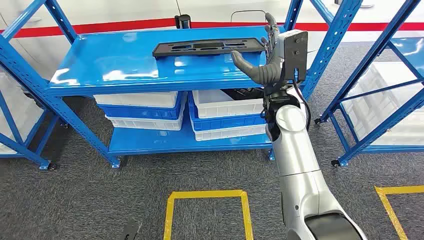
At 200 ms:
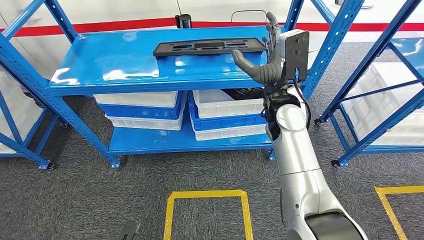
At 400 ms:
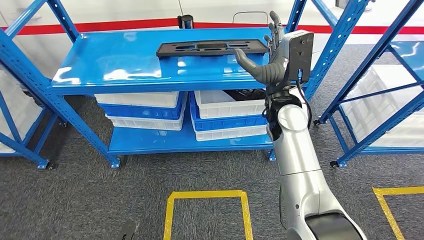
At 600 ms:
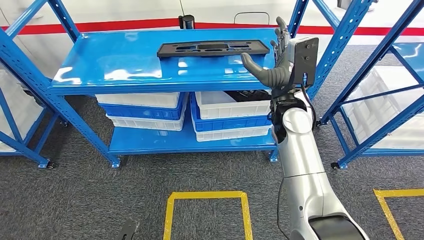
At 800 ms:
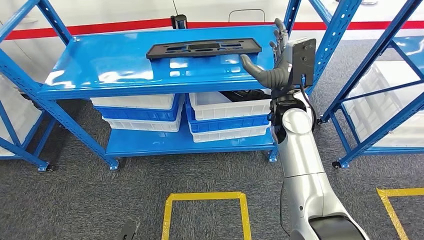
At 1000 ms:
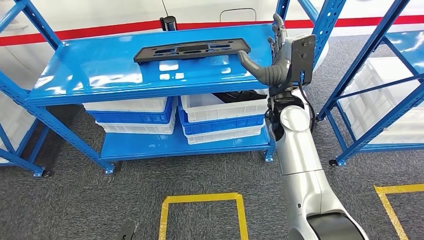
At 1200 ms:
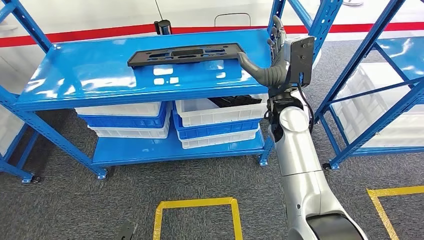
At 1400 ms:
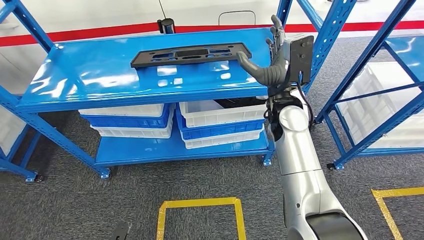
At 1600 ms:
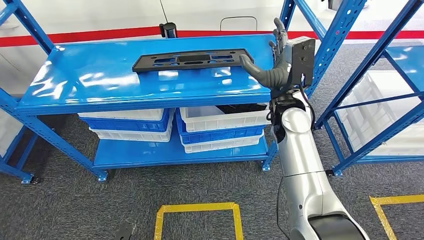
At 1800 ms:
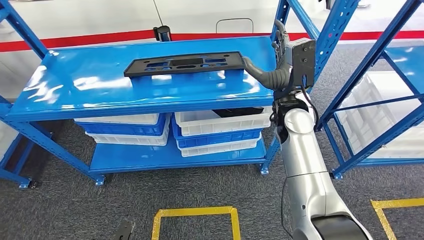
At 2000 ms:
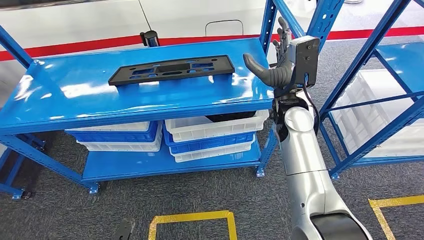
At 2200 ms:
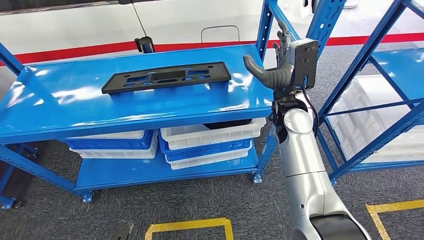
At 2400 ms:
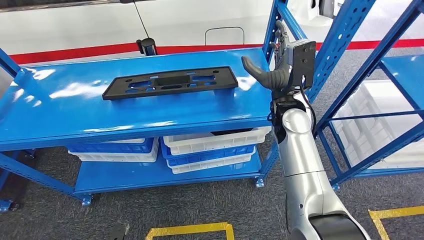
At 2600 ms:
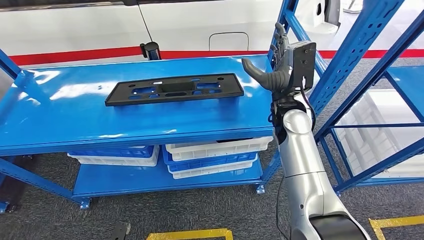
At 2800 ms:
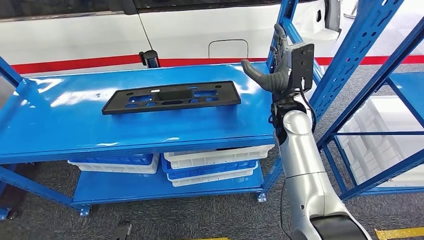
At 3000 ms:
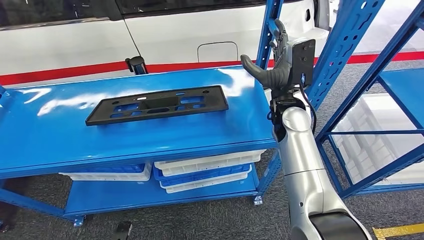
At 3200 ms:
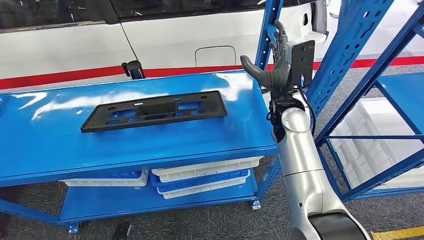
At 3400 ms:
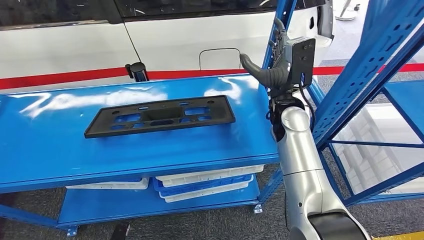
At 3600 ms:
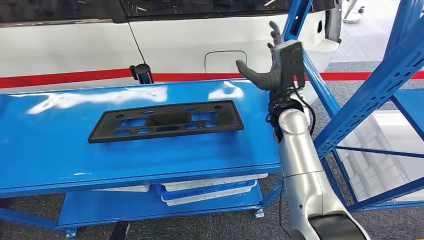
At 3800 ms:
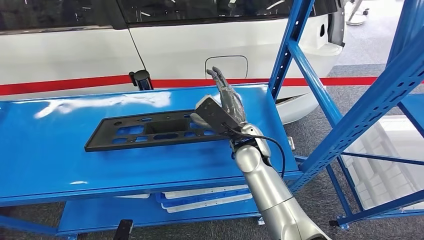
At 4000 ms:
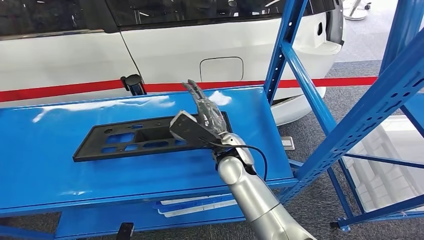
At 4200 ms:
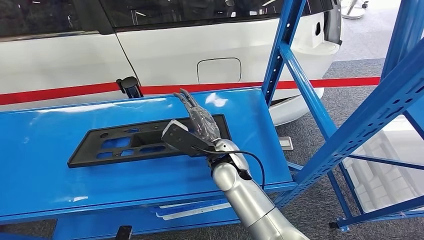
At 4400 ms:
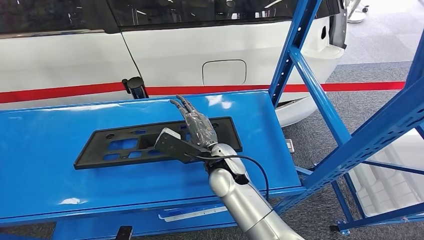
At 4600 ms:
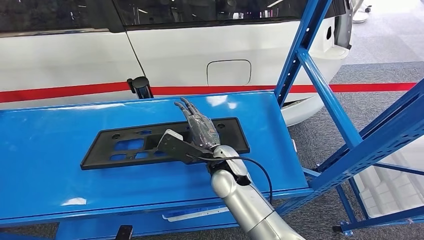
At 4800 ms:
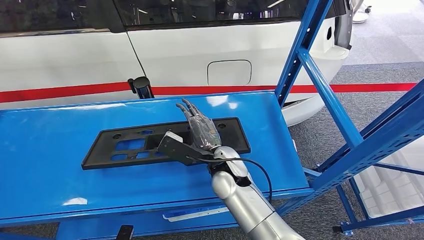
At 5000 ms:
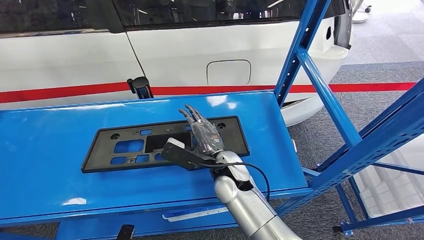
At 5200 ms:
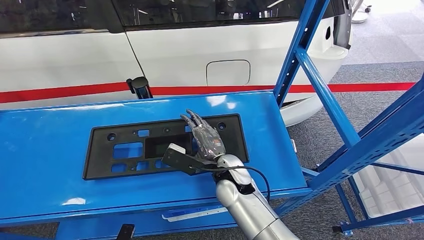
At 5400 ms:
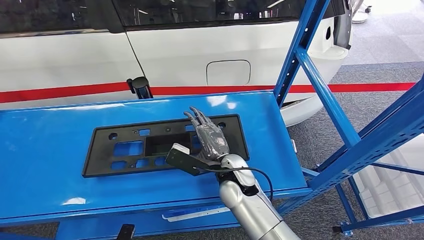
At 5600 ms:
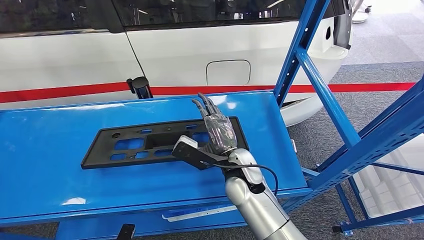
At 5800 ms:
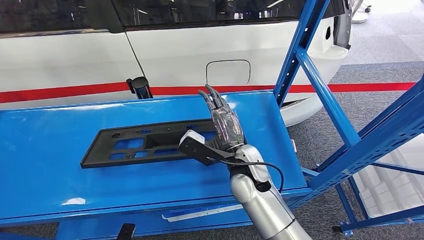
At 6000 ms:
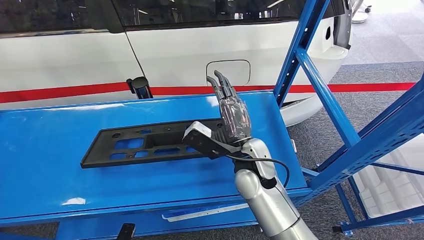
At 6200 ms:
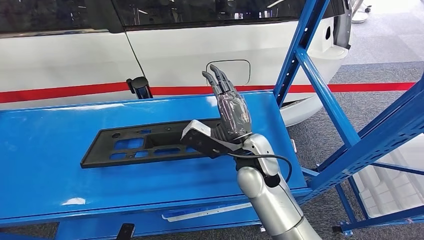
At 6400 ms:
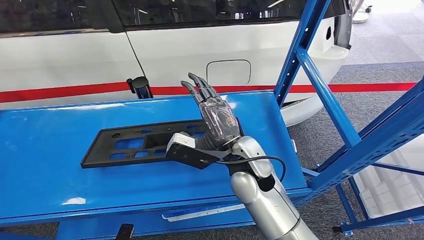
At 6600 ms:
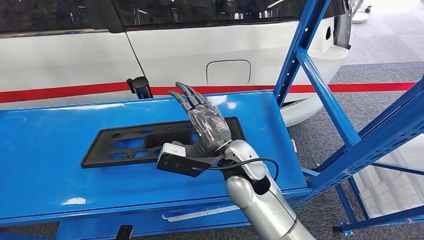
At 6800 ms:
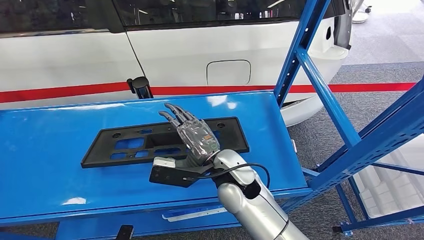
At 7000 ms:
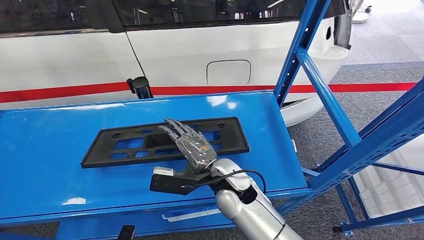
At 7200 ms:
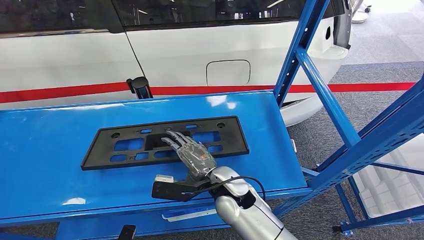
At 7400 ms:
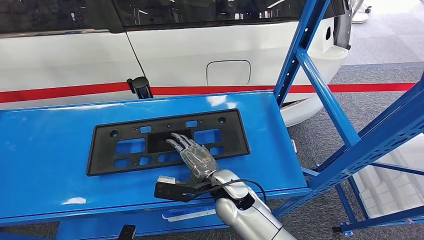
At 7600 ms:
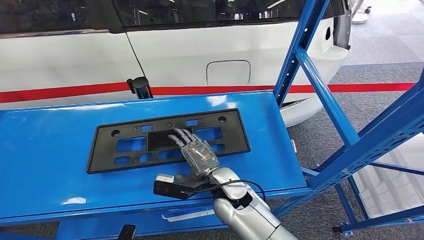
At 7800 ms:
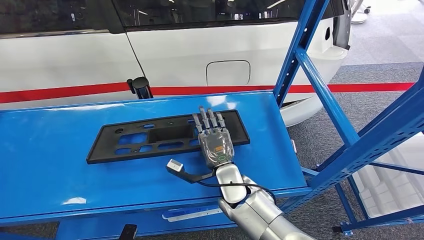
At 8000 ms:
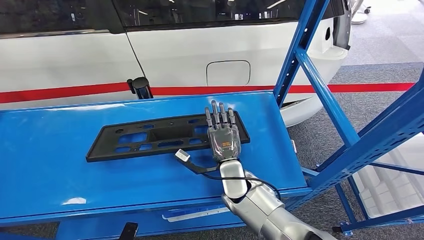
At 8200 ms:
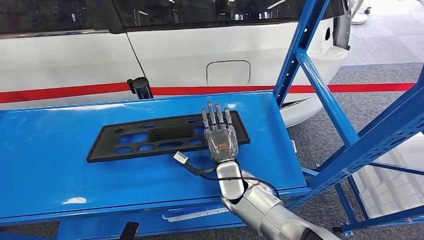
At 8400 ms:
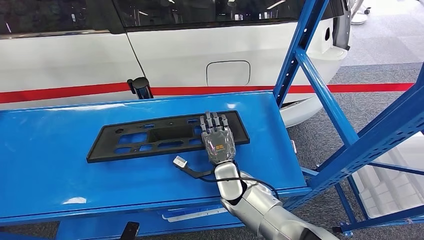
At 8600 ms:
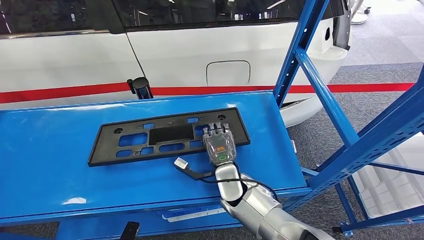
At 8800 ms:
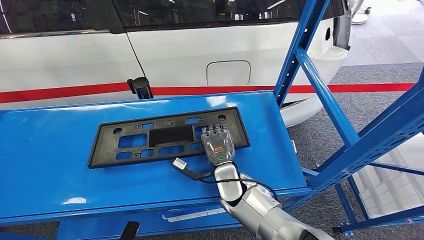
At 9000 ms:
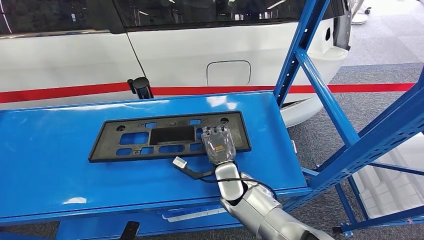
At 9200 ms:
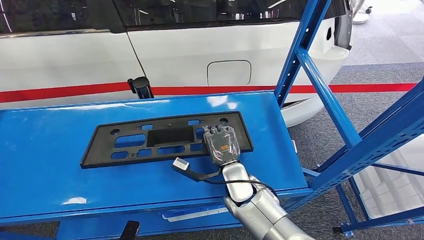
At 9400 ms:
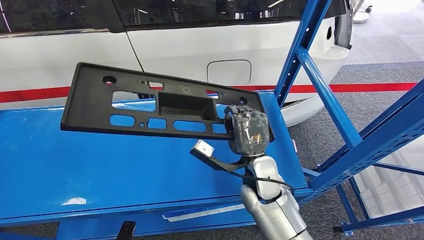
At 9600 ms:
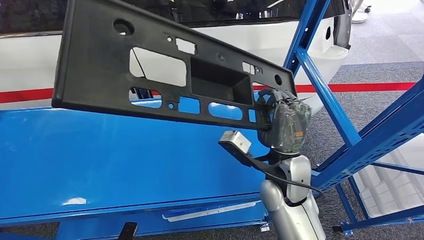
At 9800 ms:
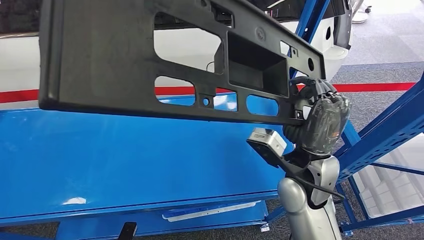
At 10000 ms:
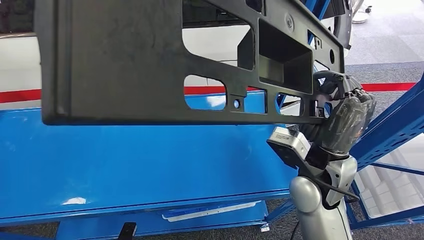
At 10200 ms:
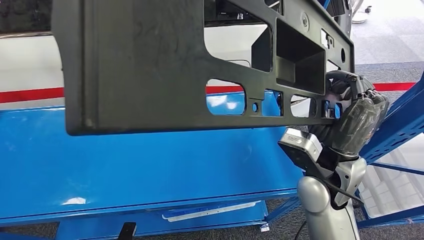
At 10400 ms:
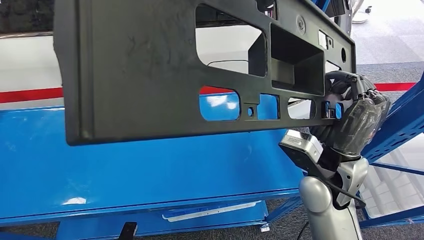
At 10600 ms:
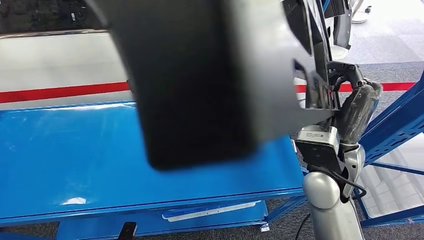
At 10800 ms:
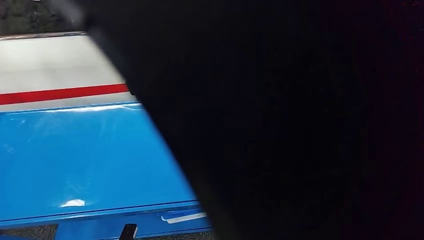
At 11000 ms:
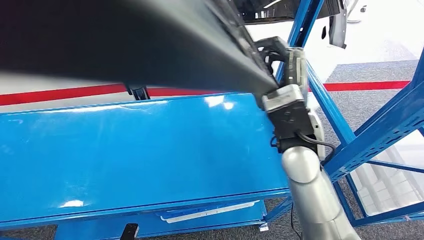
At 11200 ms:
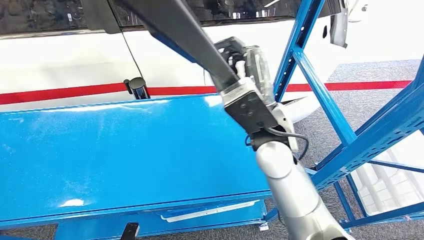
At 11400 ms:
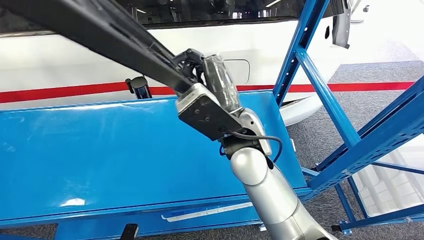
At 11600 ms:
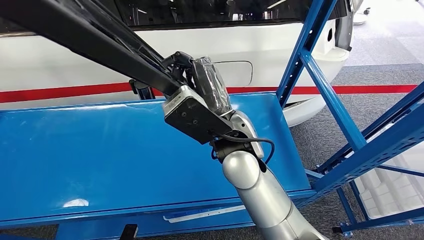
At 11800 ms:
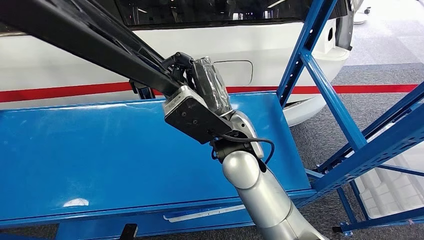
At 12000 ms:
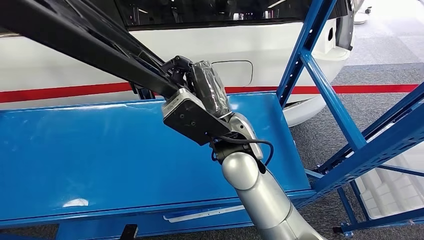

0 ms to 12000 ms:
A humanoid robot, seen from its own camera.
Step, 0 ms to 11800 ms: Pick up the large material from the shelf.
6000 ms to 7600 ms: The right hand travels downward by roughly 10 cm.
7600 ms to 9000 ms: The right hand changes place by some 5 cm.

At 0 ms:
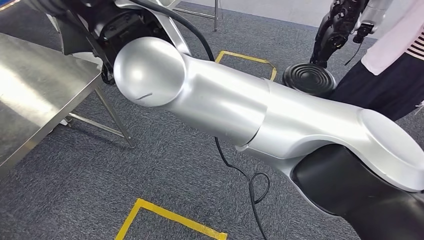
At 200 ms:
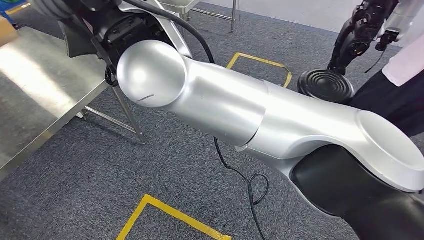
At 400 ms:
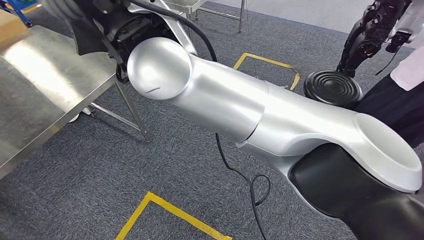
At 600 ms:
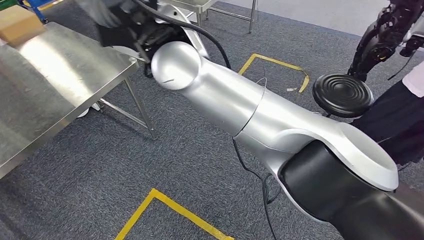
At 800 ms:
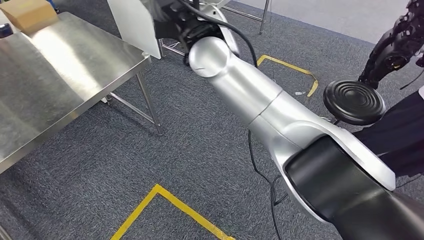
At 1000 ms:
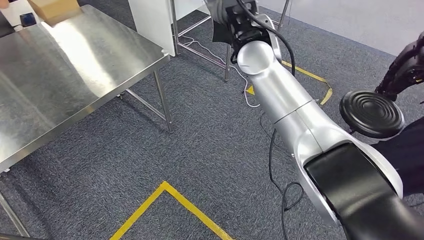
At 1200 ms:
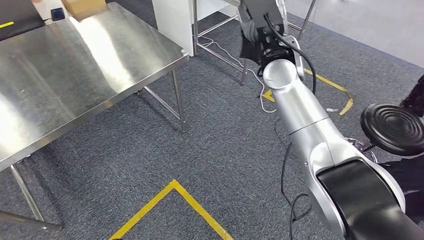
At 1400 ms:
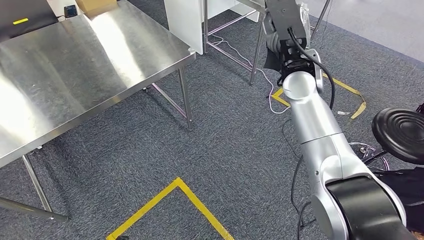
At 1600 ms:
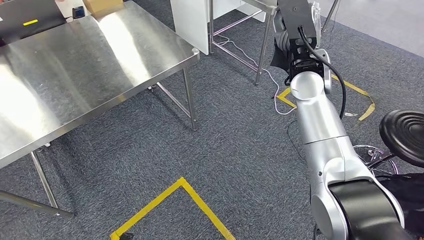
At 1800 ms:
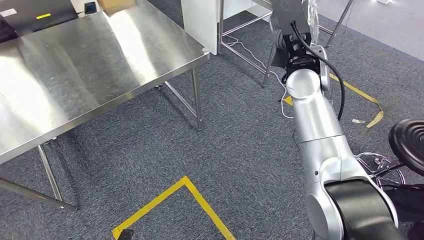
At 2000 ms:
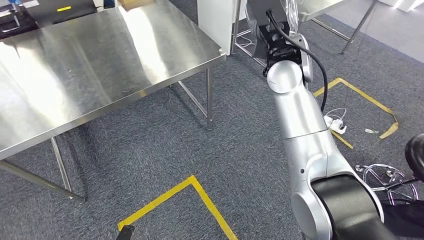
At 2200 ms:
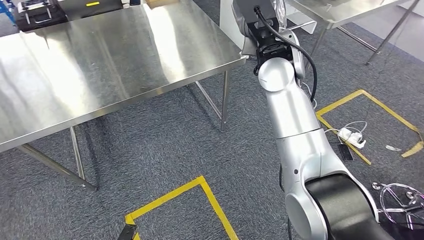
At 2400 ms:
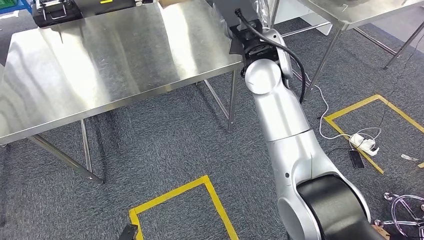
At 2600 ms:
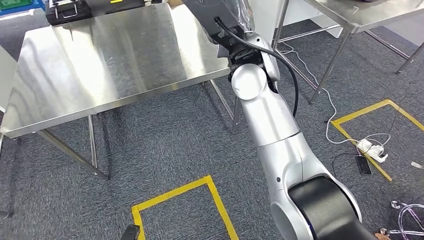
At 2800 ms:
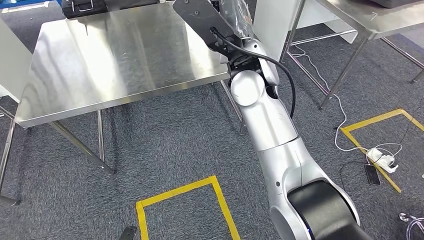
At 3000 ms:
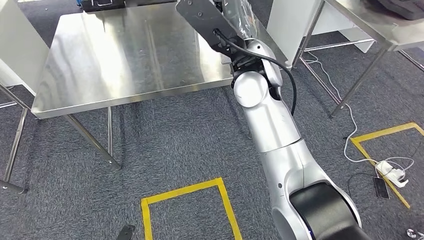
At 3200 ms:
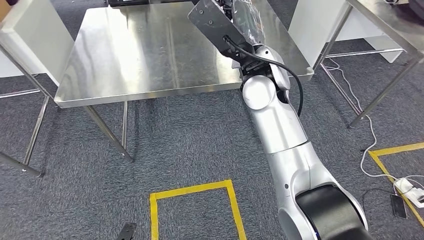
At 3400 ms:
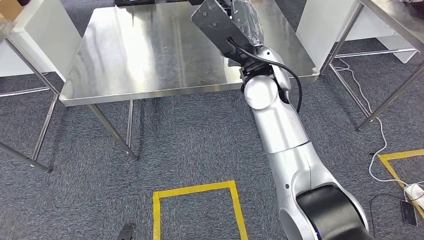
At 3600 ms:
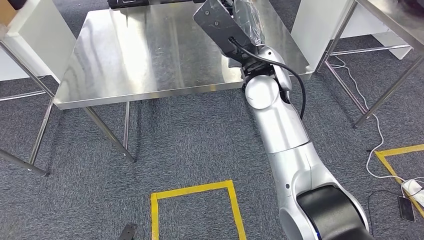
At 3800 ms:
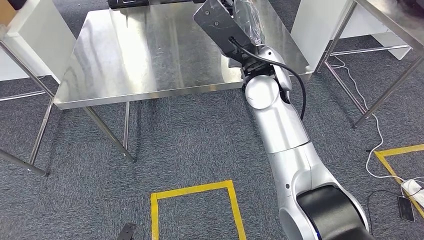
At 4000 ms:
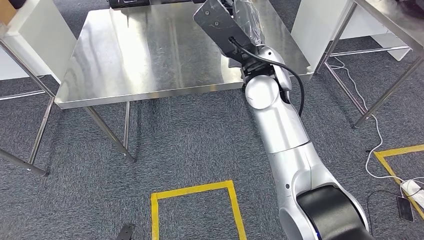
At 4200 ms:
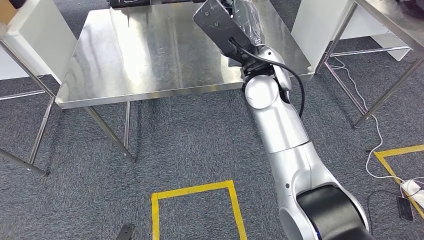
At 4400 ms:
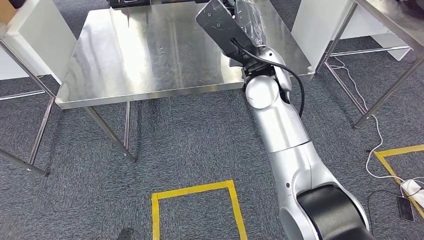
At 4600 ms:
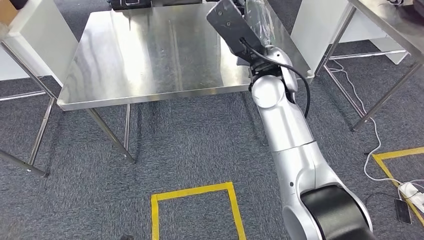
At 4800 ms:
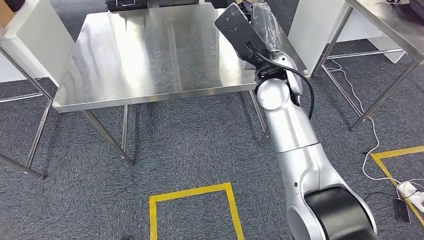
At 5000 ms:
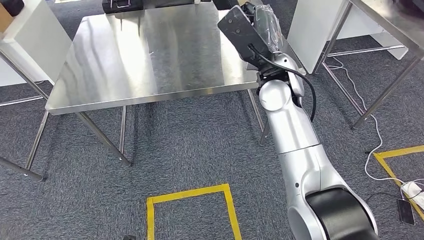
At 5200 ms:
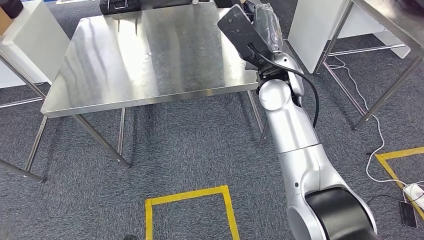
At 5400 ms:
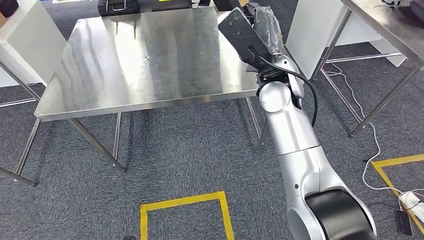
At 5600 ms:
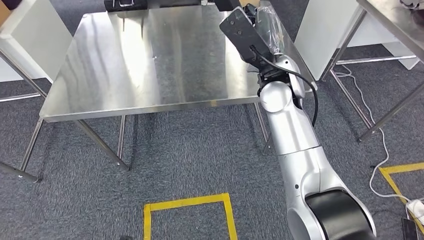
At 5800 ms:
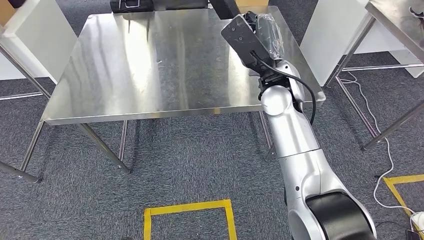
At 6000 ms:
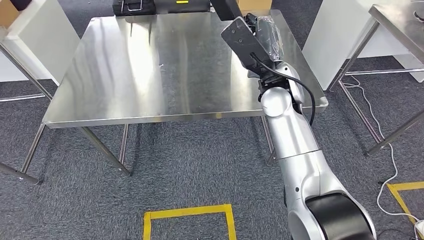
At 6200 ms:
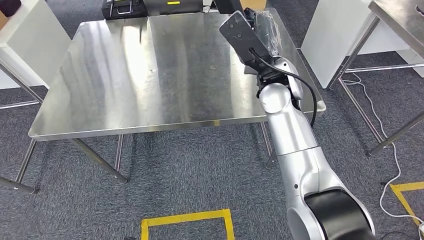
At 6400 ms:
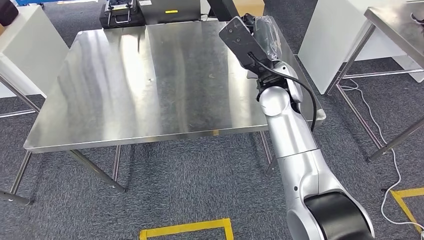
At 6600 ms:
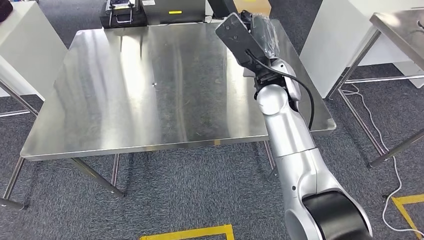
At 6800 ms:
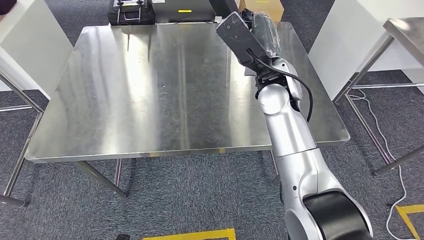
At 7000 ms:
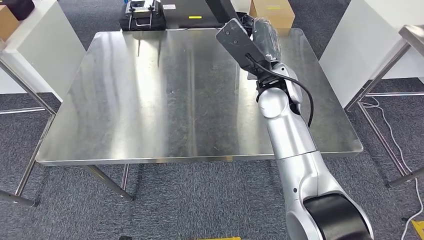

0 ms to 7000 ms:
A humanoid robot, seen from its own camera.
Step, 0 ms to 3000 ms: Move the large material to the workbench.
